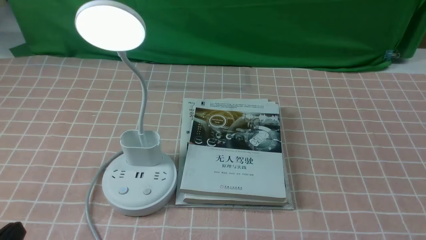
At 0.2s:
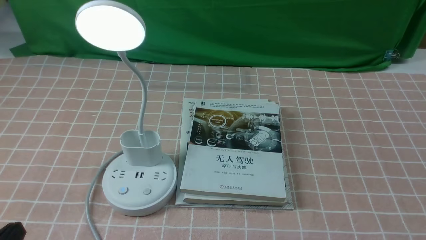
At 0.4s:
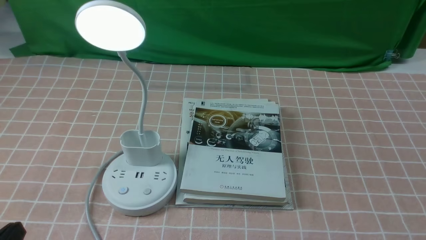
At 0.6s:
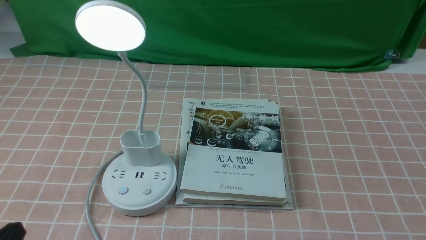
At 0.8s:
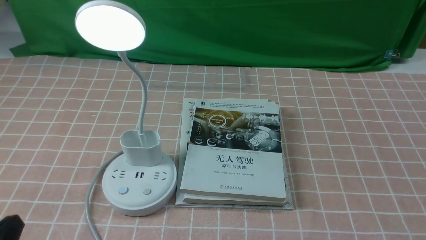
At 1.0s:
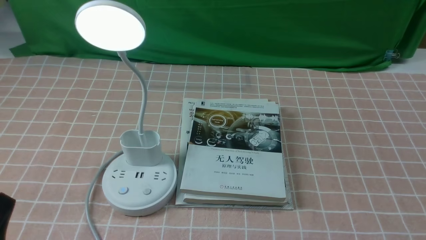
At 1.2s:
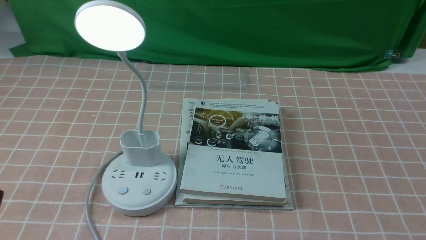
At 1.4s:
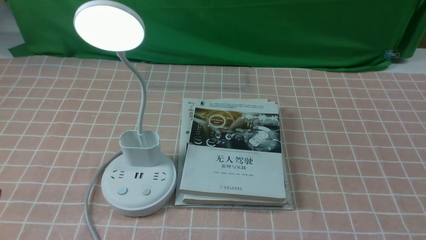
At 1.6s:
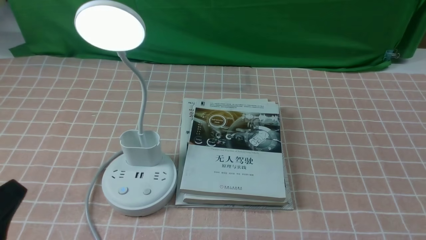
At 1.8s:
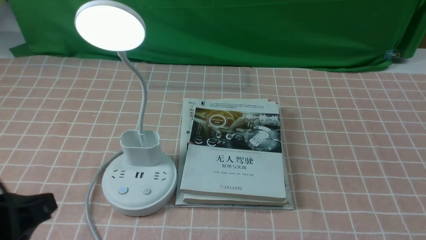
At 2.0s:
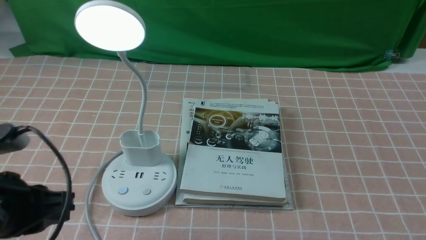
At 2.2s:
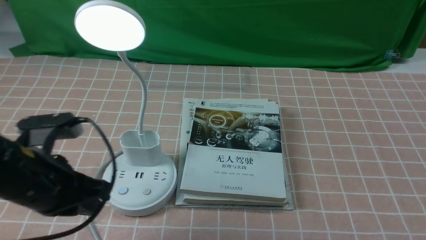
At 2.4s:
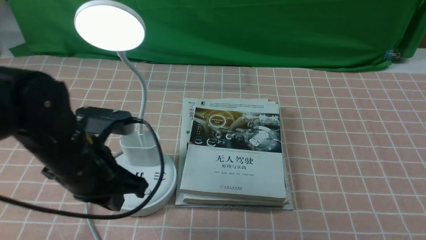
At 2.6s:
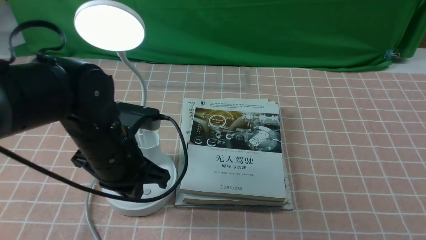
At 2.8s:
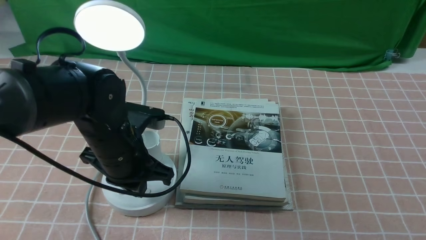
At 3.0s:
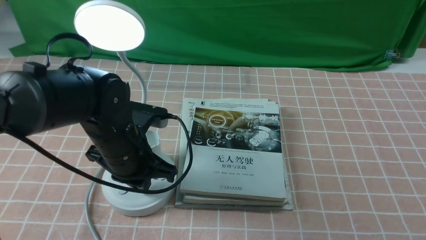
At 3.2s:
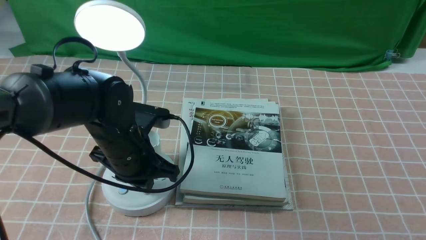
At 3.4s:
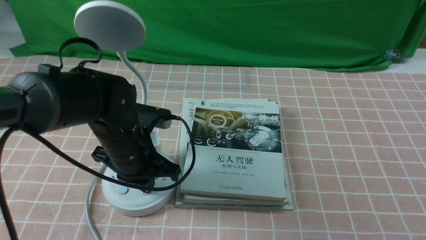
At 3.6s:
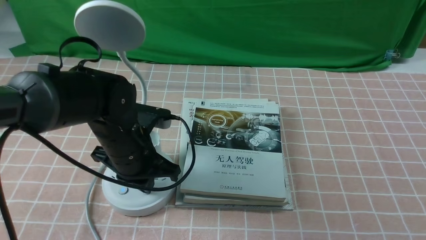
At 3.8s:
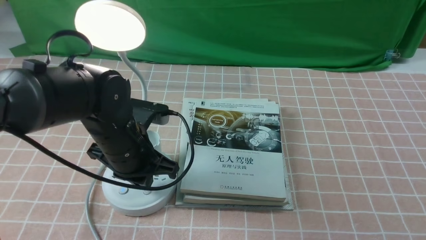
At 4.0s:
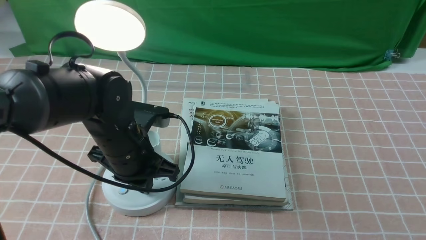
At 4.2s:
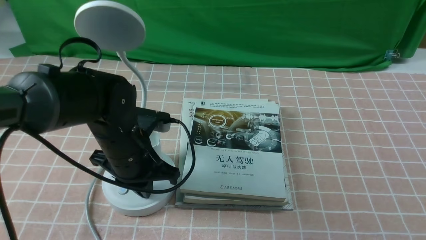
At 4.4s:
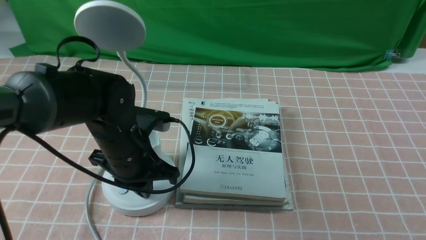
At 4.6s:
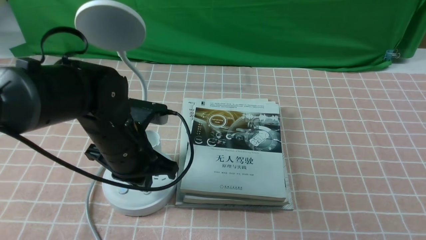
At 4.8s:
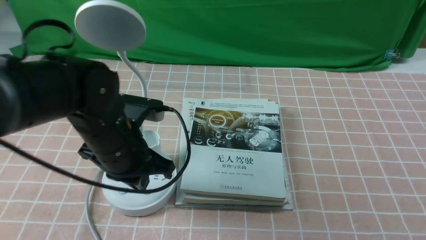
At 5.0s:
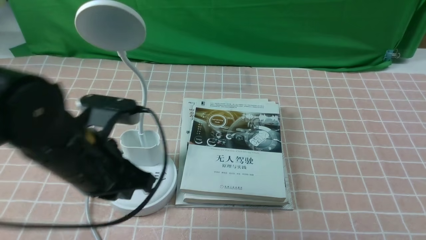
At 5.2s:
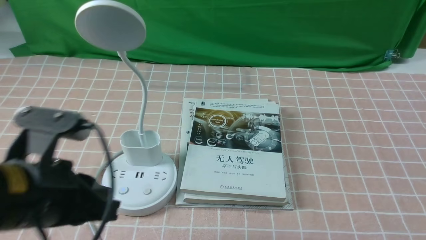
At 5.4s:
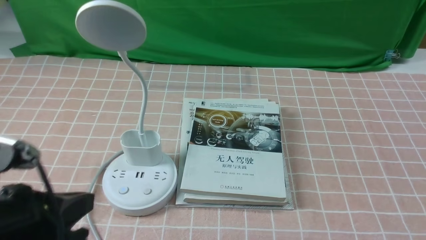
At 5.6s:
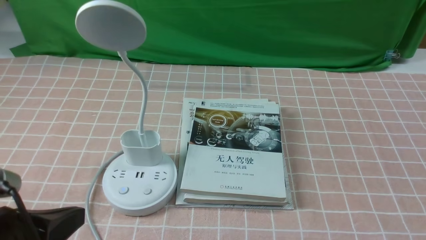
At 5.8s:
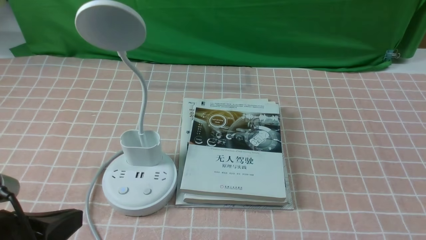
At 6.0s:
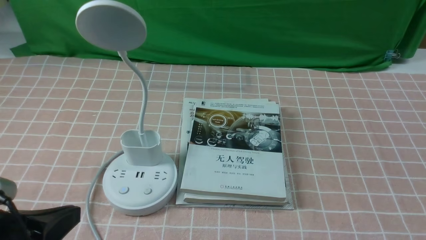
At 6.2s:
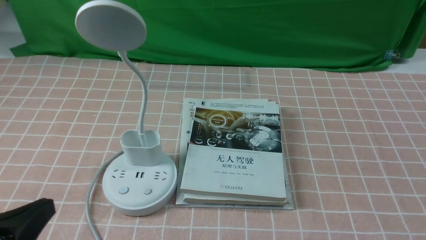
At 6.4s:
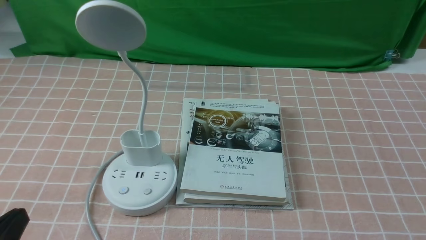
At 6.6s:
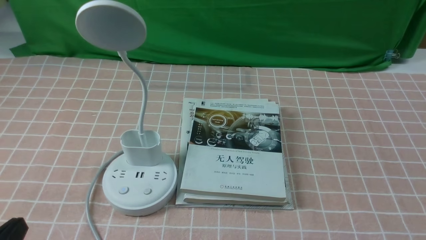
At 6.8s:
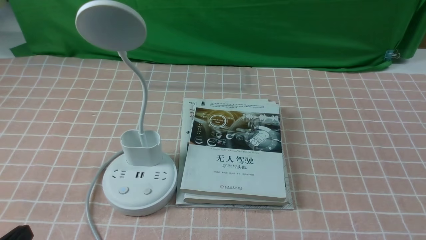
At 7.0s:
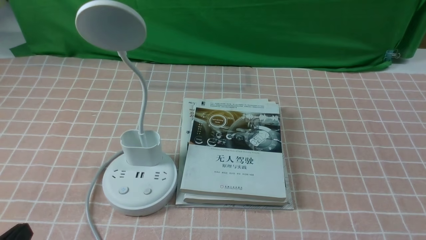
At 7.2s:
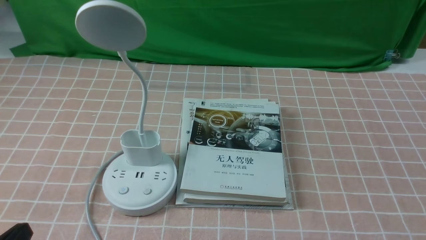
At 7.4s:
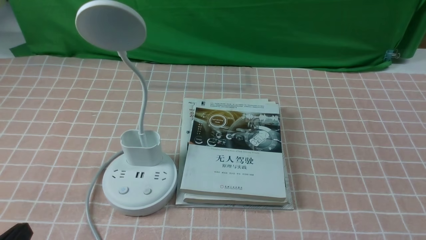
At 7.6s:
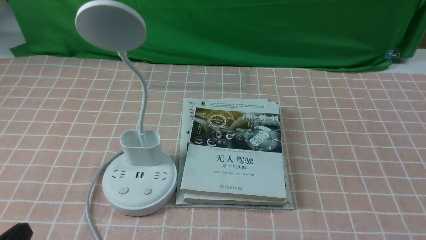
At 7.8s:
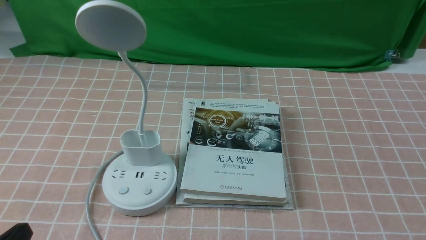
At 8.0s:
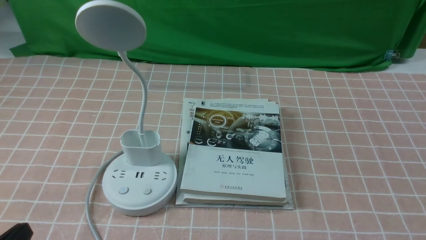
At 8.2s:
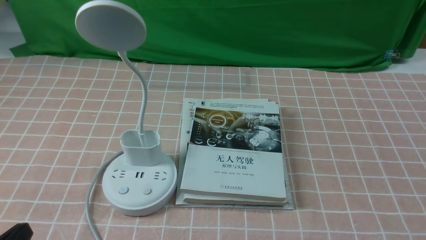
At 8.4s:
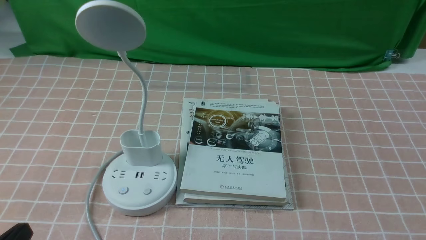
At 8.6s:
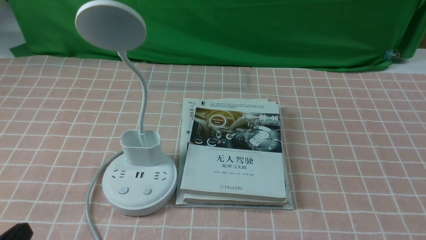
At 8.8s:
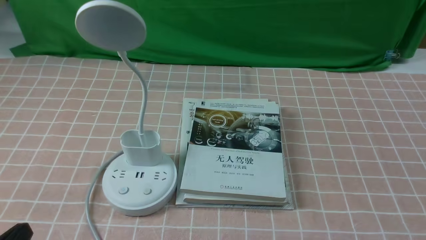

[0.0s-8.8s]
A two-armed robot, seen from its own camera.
Task of the whole recording: turn off the table lamp on the pink coffee tablecloth by hand.
Step, 0.0s to 4.4s: use the left arm to press the button switch on the lamp holder.
1.4s to 3.0s: The left gripper heads forward and to the right, covering approximately 25 cm, and closes its fingers.
3.0s to 4.4s: The grippers stay close to where they were, moving slightly.
4.4s to 5.8s: The left gripper shifts some 20 cm backward and to the left, and opens up.
5.8s to 7.4s: The left gripper heads downward, covering some 10 cm.
7.4s to 8.8s: Neither gripper changes place.

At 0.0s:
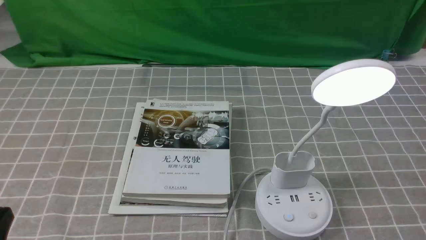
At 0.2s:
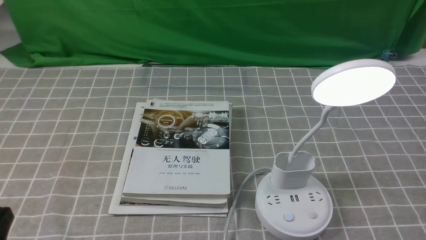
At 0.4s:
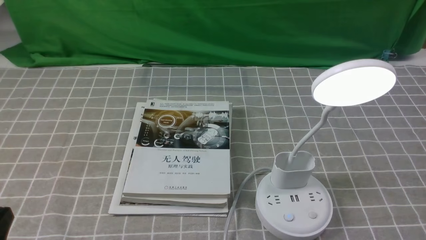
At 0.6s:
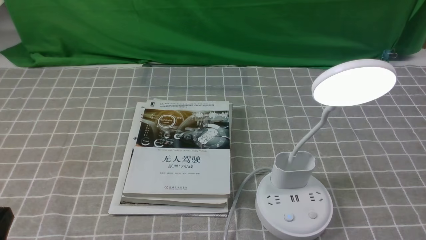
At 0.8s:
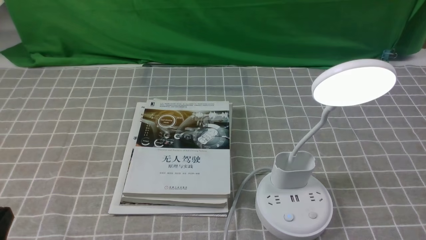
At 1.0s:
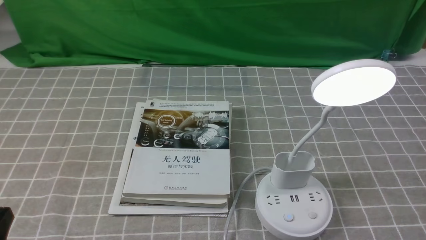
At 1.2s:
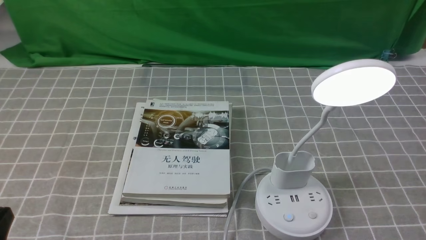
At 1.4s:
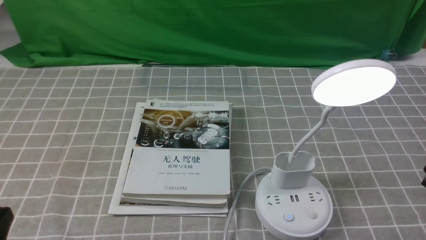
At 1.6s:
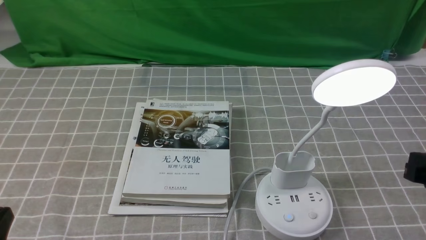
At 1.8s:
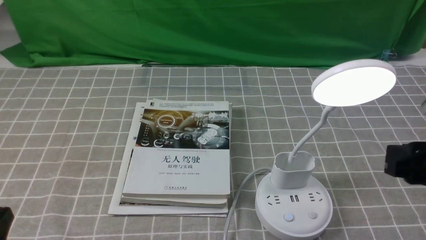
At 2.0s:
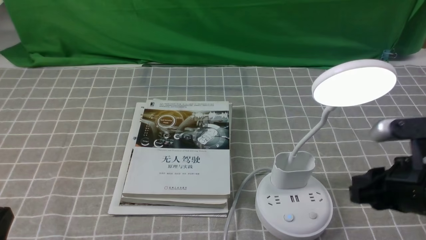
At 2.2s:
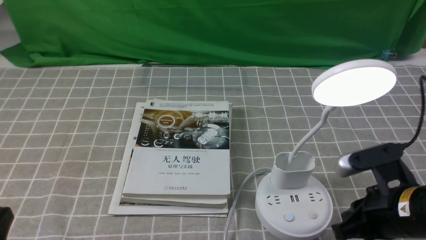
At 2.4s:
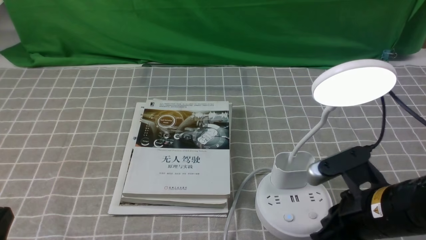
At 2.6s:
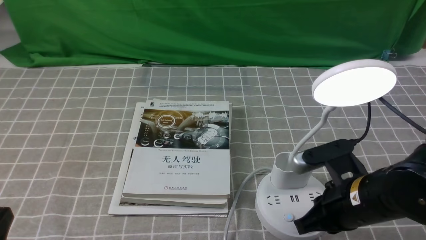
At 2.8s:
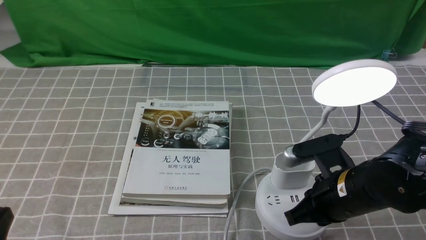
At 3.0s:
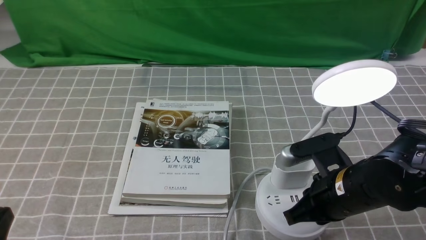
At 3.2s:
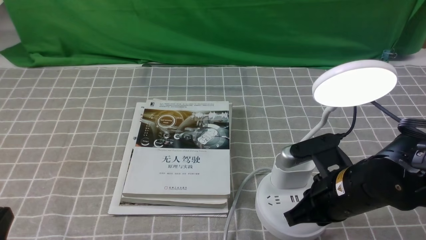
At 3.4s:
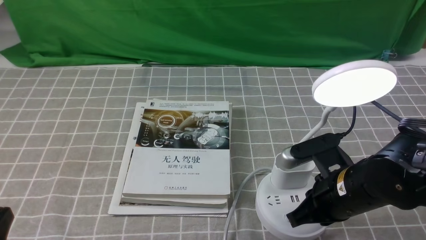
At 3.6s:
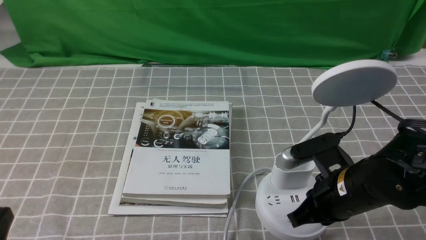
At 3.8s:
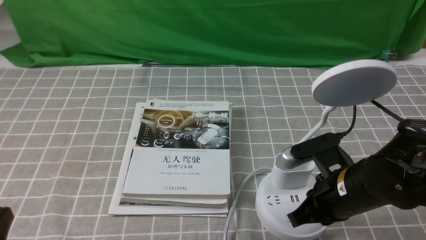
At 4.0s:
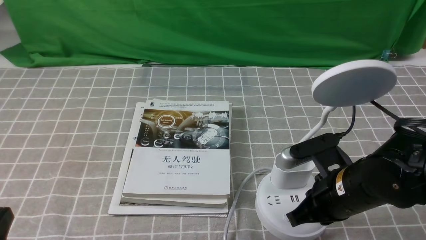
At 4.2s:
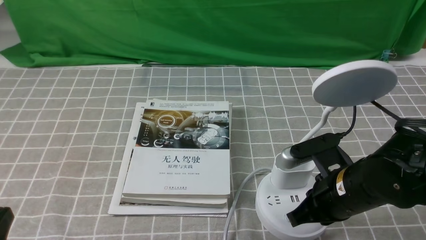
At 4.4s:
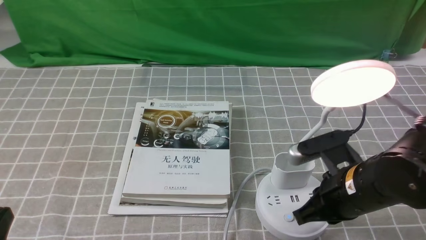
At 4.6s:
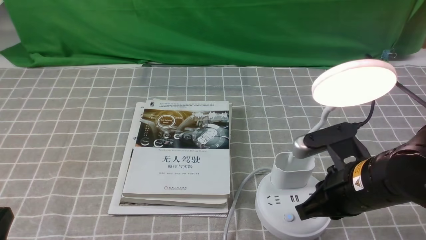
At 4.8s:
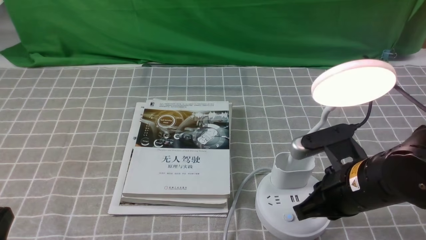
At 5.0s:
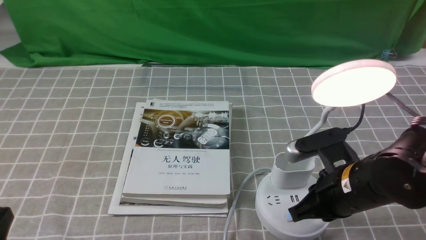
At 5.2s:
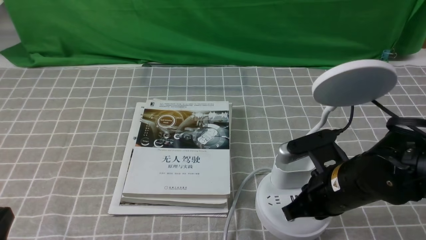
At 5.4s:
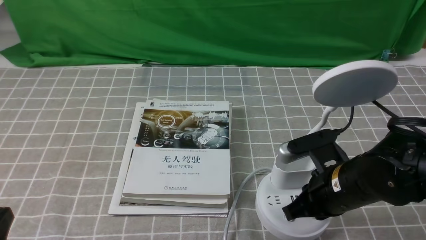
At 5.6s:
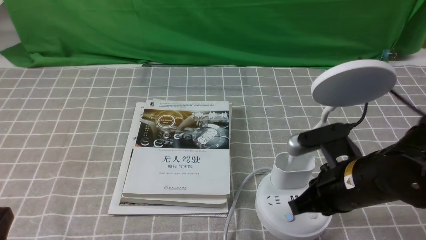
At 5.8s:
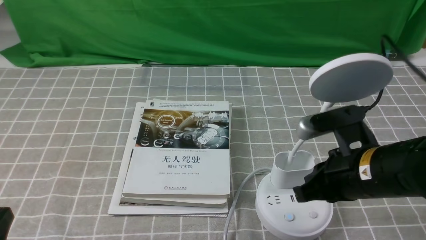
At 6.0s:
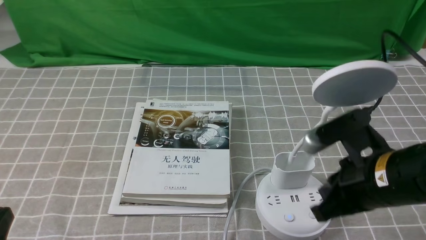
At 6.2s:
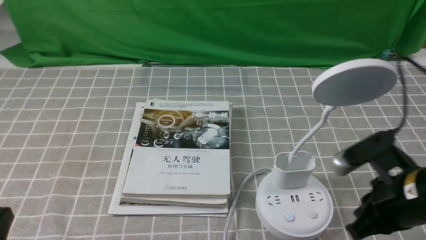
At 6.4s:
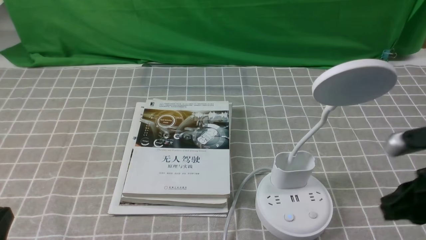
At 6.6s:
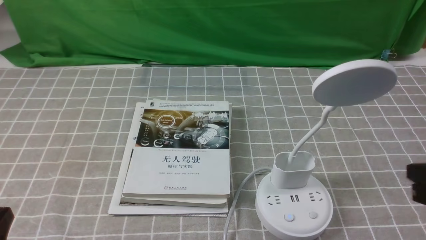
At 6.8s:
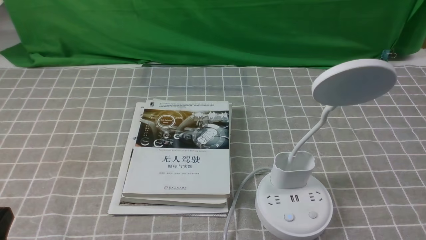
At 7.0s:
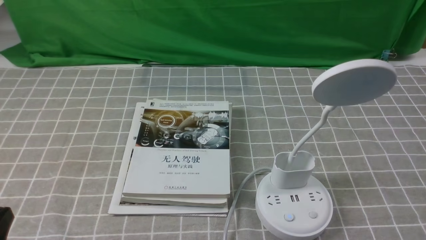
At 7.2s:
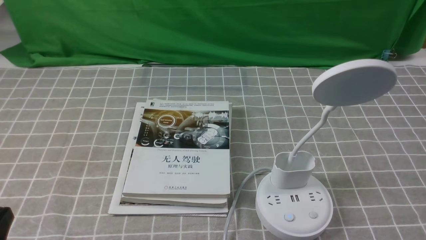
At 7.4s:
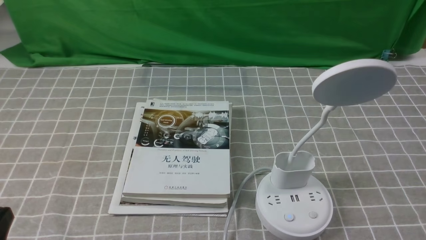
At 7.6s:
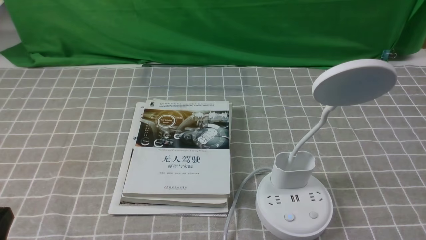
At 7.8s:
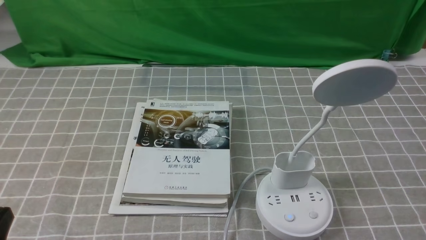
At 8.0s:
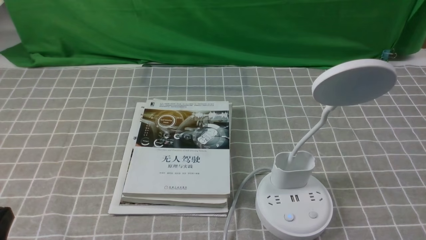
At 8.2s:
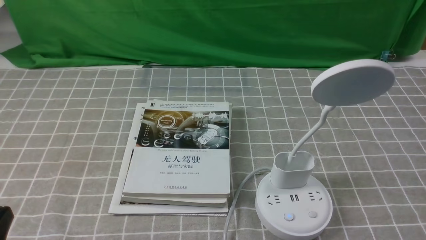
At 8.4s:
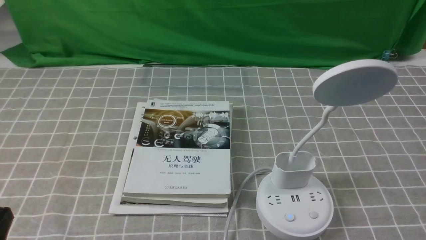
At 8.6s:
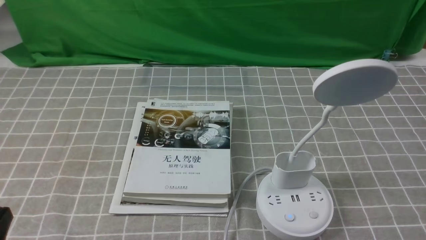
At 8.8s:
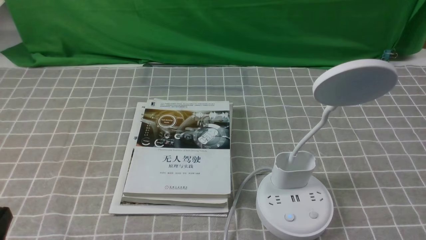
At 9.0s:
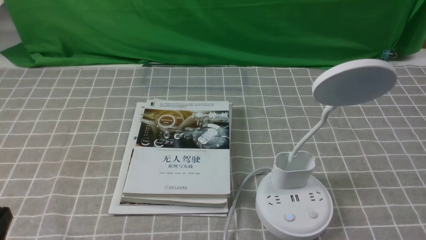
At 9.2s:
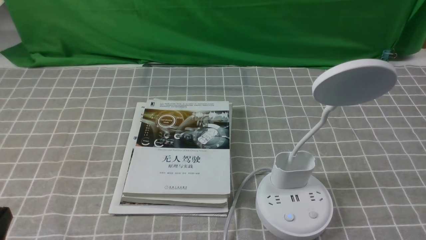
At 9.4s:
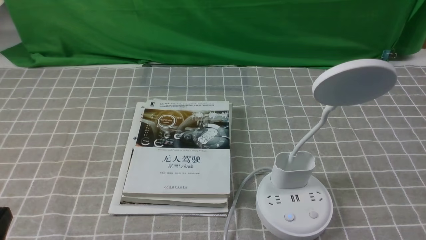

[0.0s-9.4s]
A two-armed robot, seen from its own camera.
Task of the whole recording: turn off the desk lamp on the grey coffee tablecloth by hand.
Step, 0.0s to 5.6s: use the right arm to press the button switch on the lamp holder.
1.6s to 3.2s: The right gripper is displaced to the left and downward by roughly 15 cm, and closes its fingers.
3.2s to 4.8s: There are only small adjustments of the grippers.
4.8s to 6.2s: The right gripper shifts by about 5 cm.
6.2s to 7.8s: The right gripper is displaced backward and to the right by approximately 15 cm.
